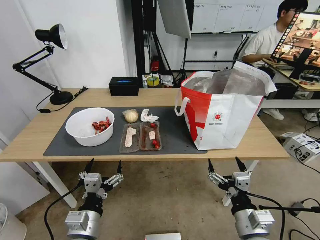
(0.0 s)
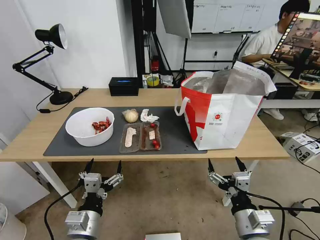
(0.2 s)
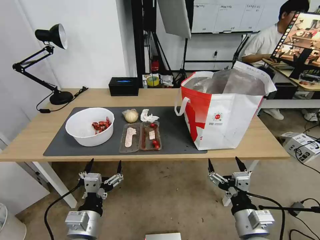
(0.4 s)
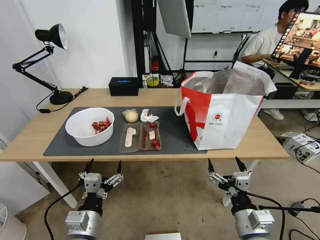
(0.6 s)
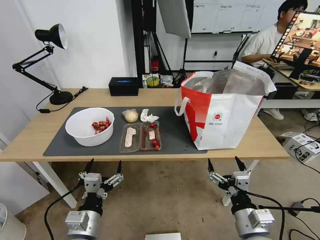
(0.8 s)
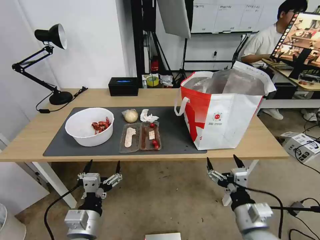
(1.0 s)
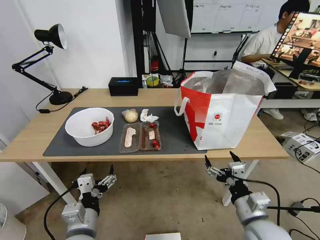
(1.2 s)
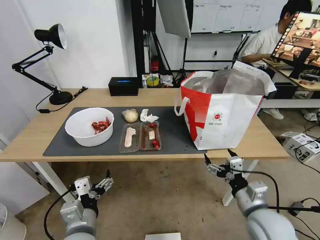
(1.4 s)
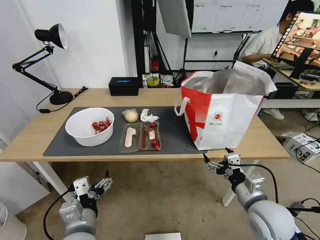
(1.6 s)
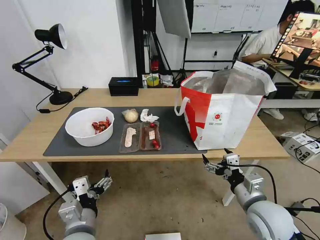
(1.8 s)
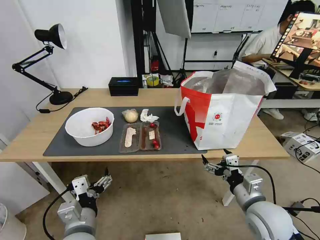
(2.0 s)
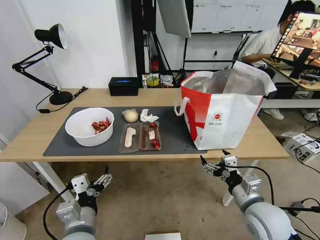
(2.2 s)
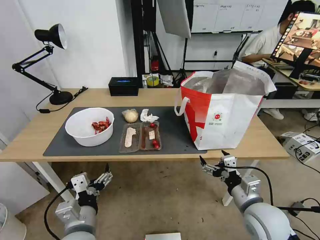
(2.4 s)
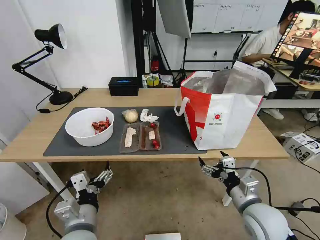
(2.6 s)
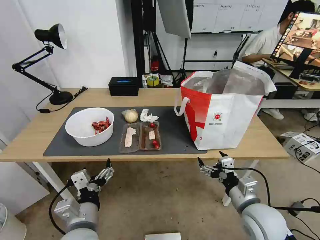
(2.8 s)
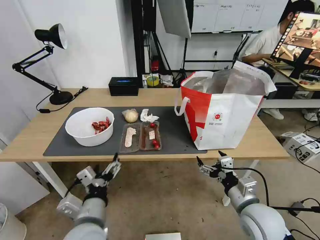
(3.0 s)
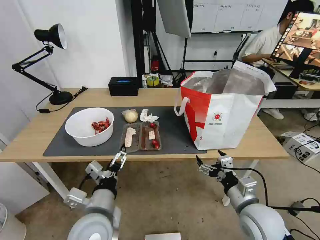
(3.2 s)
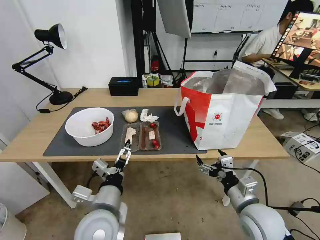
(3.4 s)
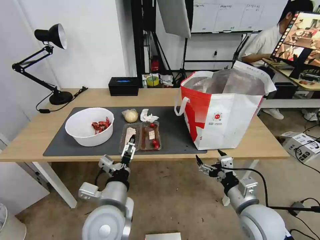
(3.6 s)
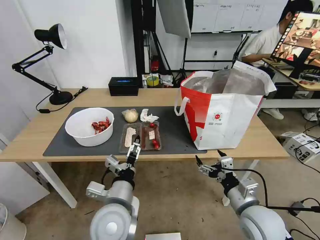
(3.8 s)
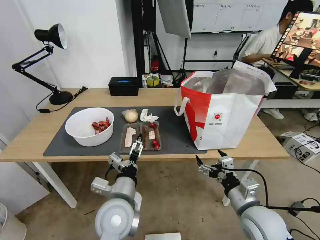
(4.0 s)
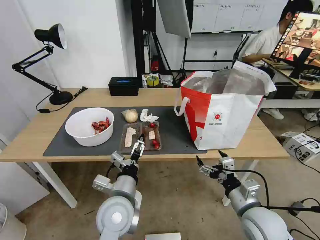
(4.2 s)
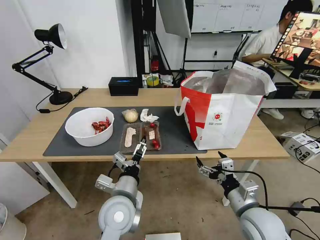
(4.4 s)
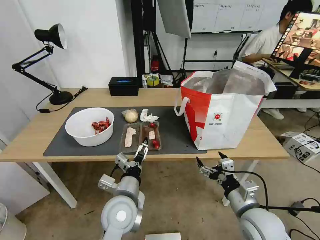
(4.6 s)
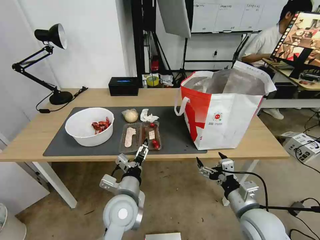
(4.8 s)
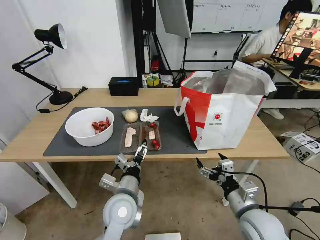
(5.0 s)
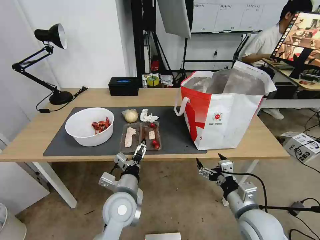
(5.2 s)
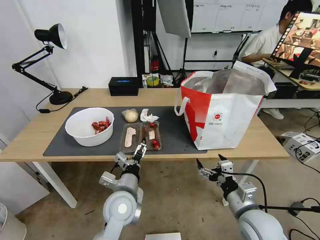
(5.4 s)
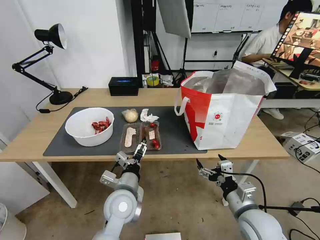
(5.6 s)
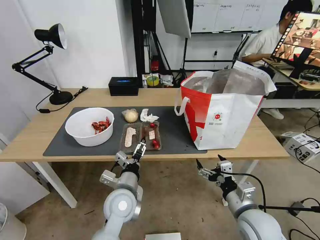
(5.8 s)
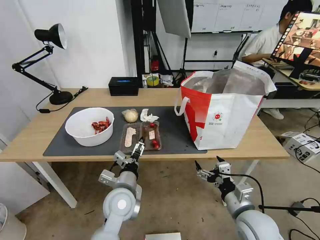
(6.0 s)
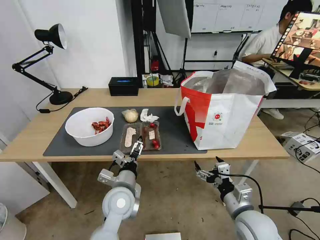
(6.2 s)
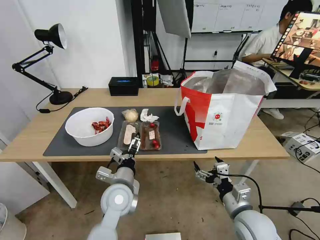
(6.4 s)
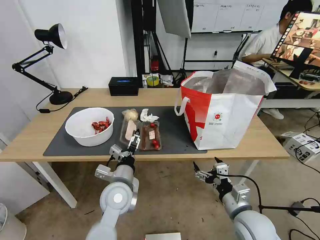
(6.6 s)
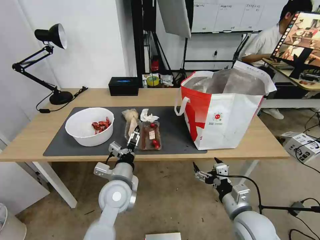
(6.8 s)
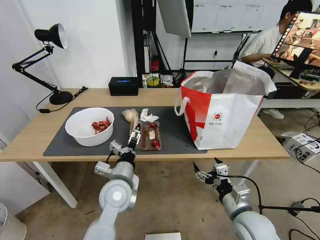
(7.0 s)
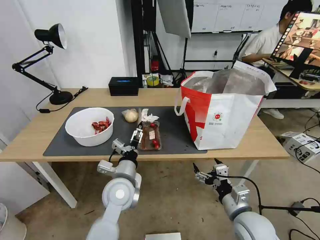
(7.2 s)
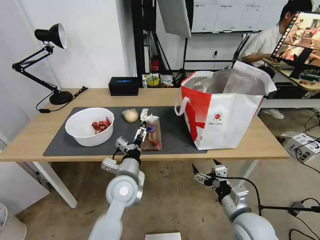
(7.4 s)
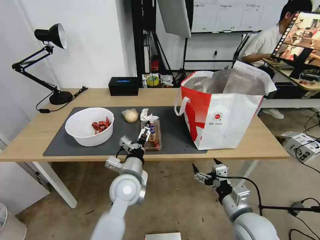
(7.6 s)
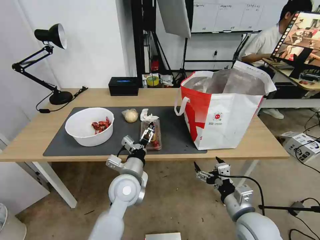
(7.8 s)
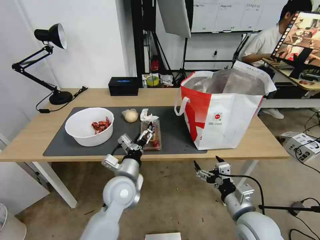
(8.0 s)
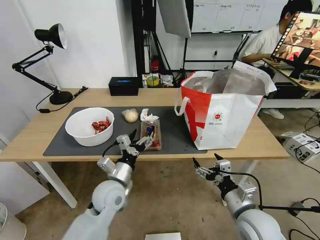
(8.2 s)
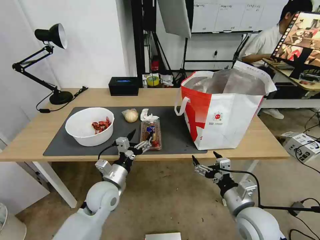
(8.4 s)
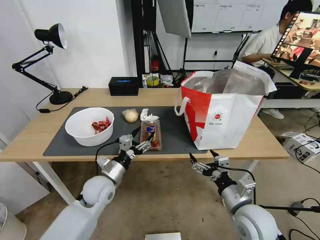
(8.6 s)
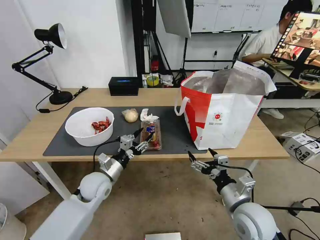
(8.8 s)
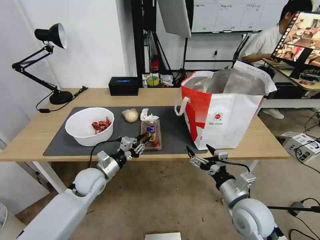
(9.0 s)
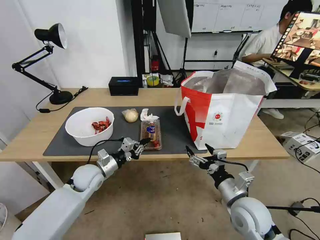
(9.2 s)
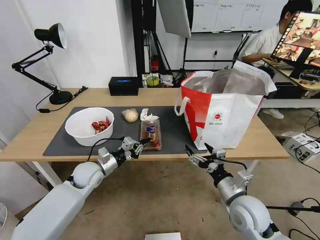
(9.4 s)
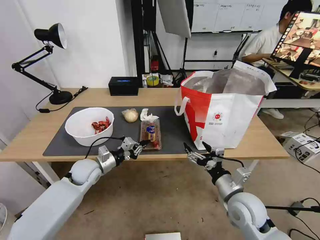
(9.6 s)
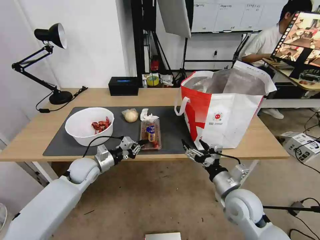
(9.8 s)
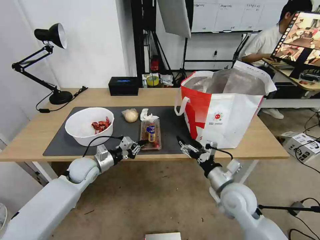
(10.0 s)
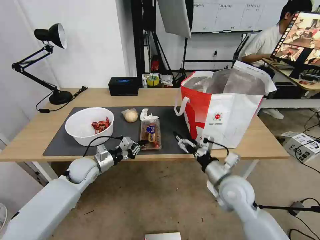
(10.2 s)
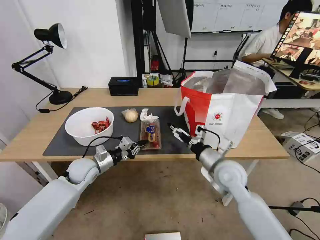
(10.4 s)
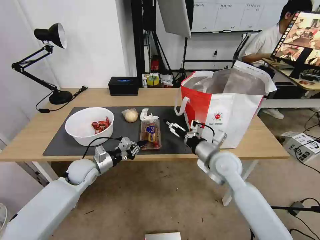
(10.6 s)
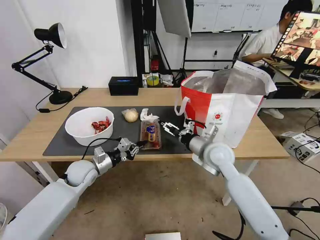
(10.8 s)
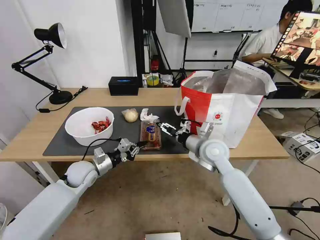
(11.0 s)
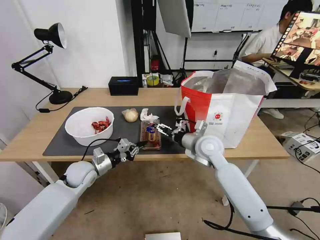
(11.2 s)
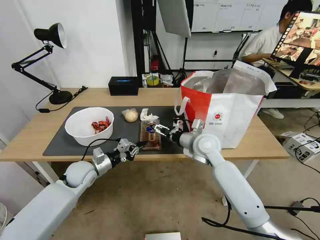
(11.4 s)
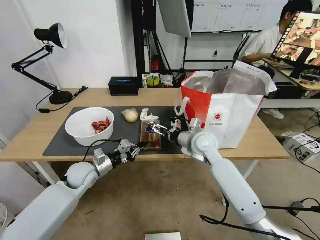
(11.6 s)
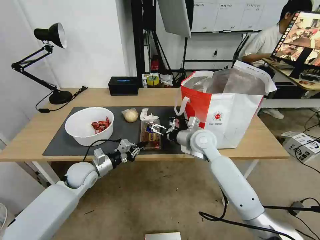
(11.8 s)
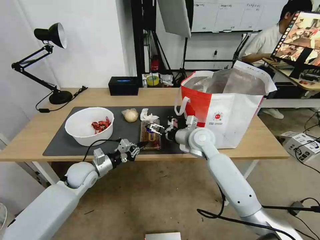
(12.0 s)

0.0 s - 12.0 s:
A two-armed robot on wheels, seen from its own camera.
Task of the whole recording: Pick up the trash from the table and place it into the takeout bag.
3.0 s - 4.4 s: The left gripper is displaced forward and to the right by some 10 cm.
4.4 s - 6.0 s: The left gripper ends up approximately 5 cm from where it was.
6.0 s - 7.6 s: There are only small adjustments of the grippers.
7.6 s - 9.0 s: The left gripper moves to the left, roughly 15 cm, and closes.
9.0 s - 10.4 s: The left gripper ends up approximately 5 cm from where it was. The right gripper travels forward by some 10 cm.
10.4 s - 12.0 s: The right gripper goes some 15 cm forward and to the left.

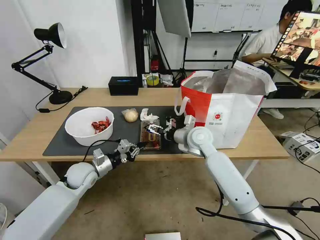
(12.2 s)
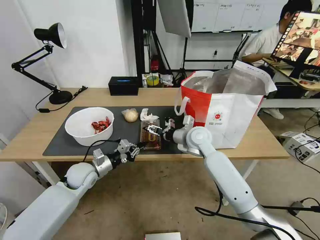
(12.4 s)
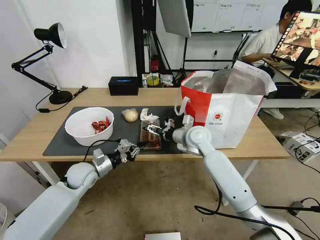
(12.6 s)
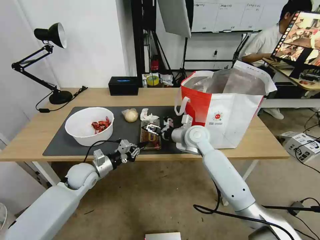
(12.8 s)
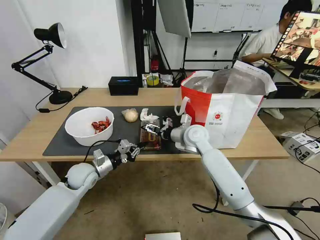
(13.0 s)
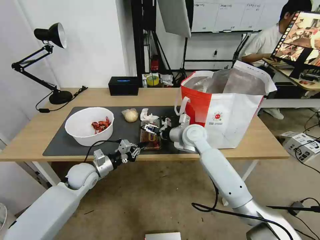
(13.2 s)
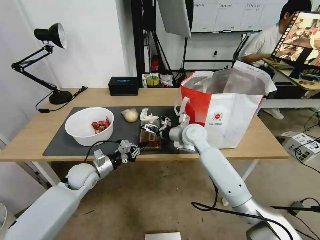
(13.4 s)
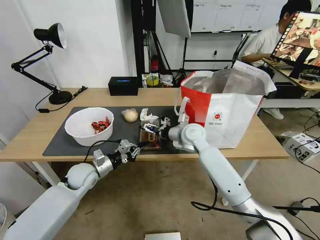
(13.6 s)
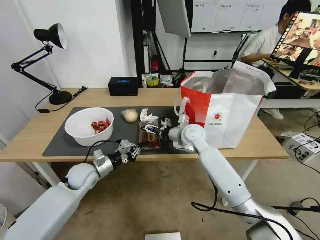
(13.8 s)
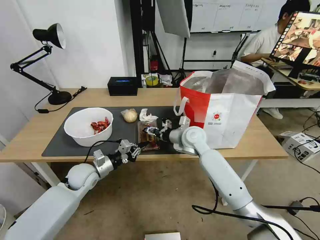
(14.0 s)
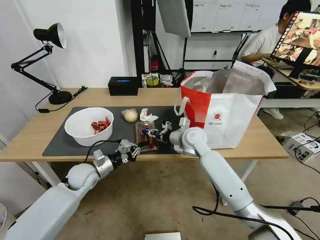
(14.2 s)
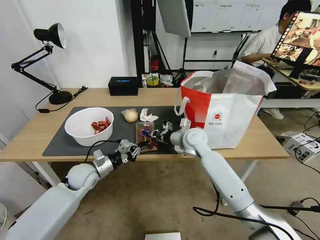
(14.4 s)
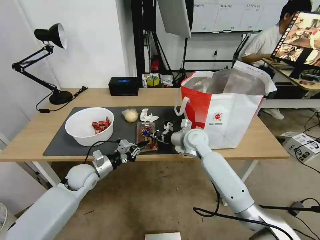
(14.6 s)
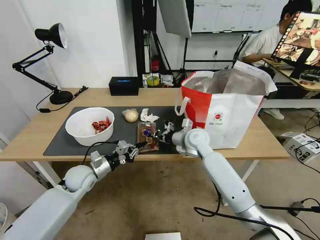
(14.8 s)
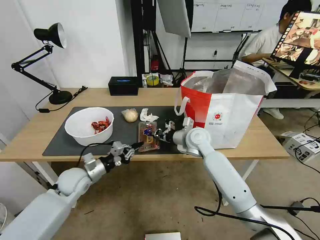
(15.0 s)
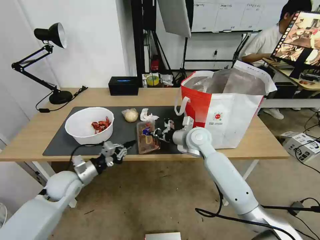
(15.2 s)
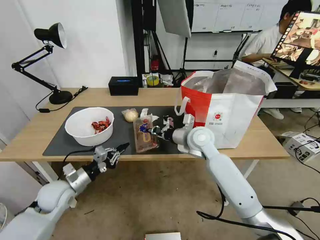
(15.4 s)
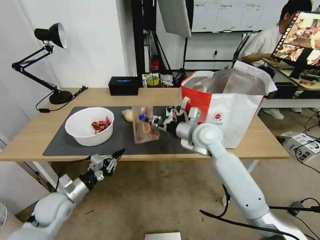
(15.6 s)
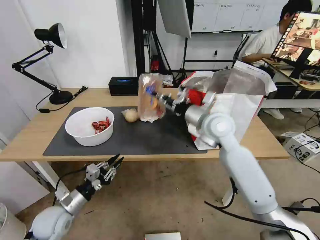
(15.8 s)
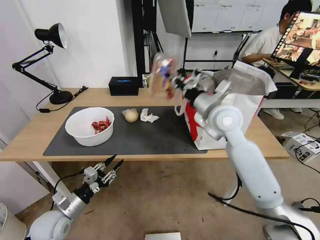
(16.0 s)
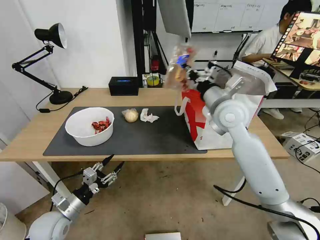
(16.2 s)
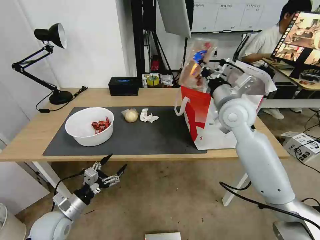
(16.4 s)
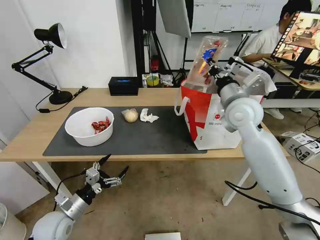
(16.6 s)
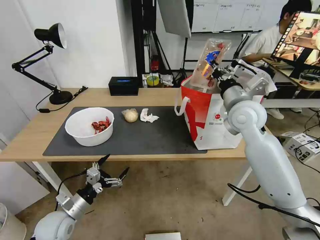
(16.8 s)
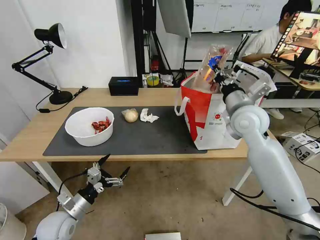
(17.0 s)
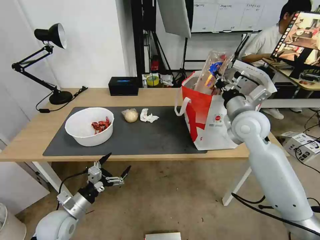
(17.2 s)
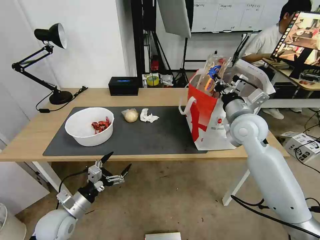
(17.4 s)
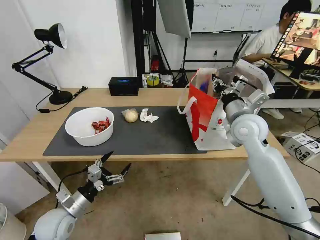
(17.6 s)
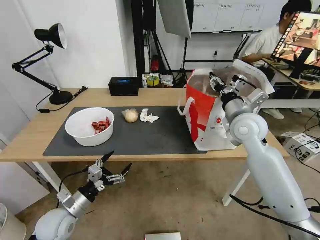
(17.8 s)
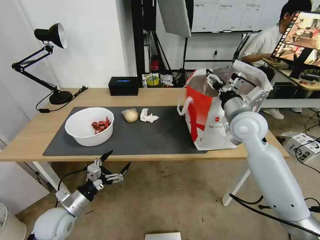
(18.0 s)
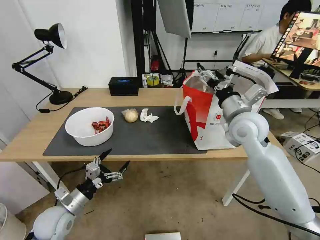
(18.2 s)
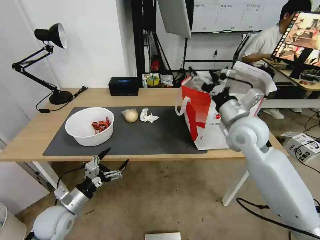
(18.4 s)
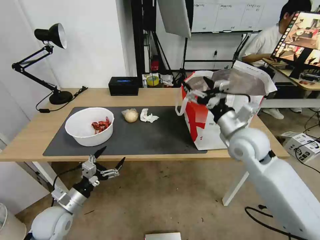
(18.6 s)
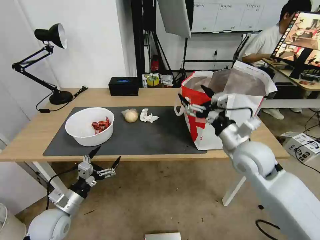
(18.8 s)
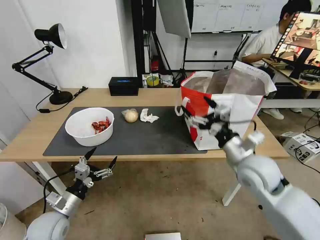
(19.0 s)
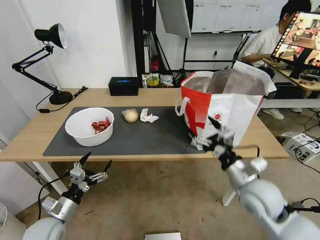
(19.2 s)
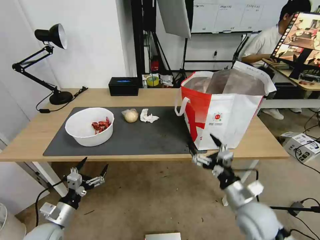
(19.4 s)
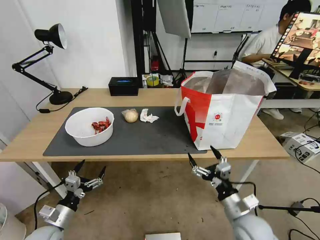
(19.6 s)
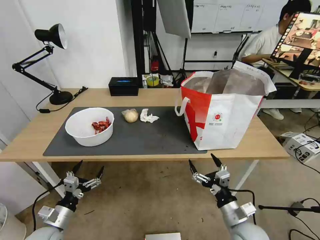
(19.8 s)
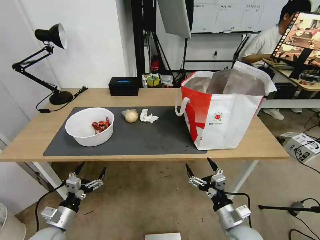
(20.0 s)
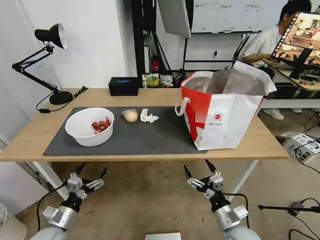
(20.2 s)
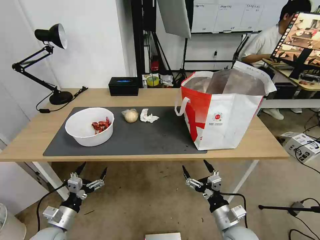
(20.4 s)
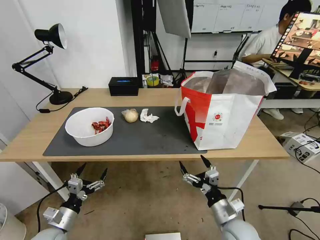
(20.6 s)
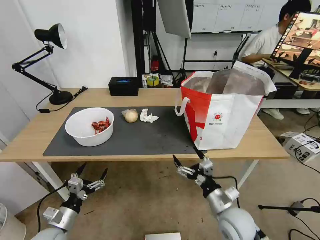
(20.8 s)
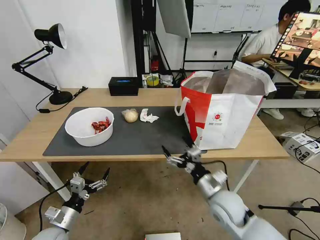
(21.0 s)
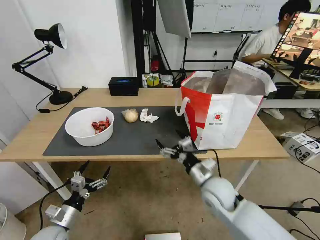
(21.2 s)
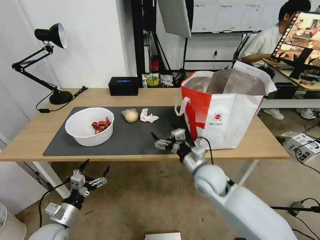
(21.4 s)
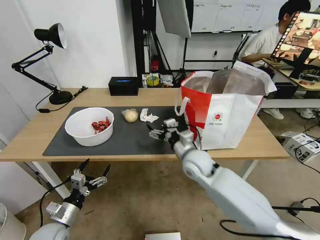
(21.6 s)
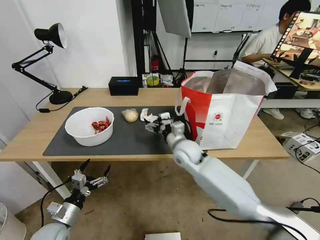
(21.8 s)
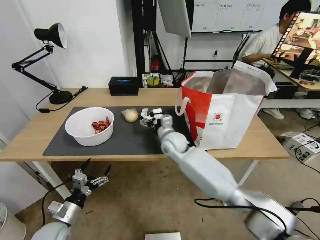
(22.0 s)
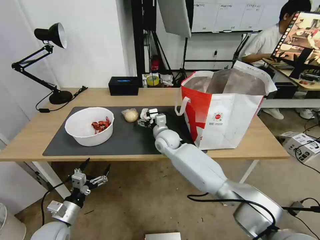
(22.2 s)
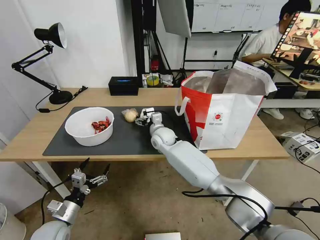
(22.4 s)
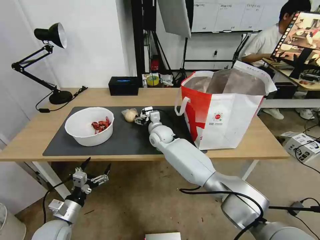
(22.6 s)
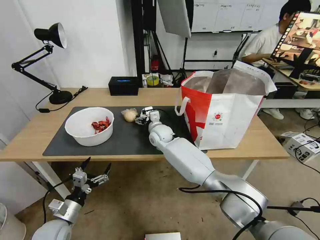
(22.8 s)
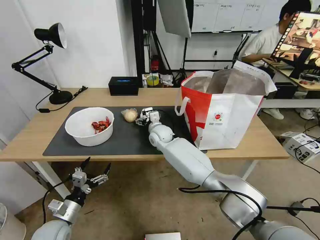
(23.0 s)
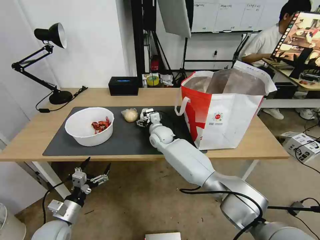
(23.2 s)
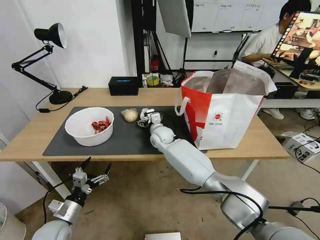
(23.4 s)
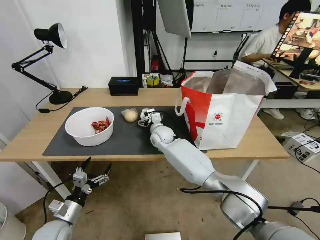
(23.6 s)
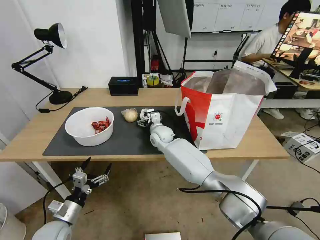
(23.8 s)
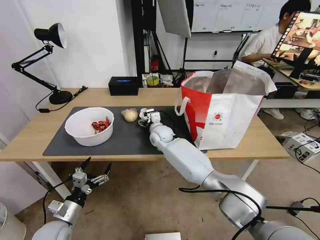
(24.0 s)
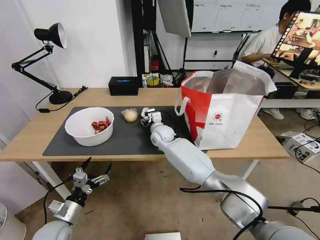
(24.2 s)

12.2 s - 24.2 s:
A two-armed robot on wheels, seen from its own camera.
Task of the whole recording: Pick up the trash from the table and place it into the takeout bag.
12.2 s - 13.8 s: The grippers move only a little.
13.8 s - 15.2 s: The left gripper moves some 5 cm. Meanwhile the right gripper closes its fingers.
15.2 s - 16.6 s: The left gripper is displaced backward and downward by some 10 cm, and opens up. The right gripper shifts about 15 cm upward and to the right.
16.6 s - 18.2 s: The right gripper opens up.
18.2 s - 19.8 s: The left gripper moves about 5 cm. Meanwhile the right gripper travels downward and backward by approximately 35 cm.
19.8 s - 21.2 s: The right gripper heads forward, to the left and upward, covering approximately 15 cm.
21.2 s - 22.6 s: The right gripper is displaced forward and to the left by roughly 30 cm.
22.6 s - 24.2 s: The right gripper closes.
